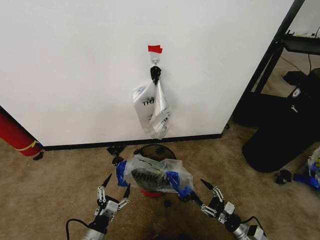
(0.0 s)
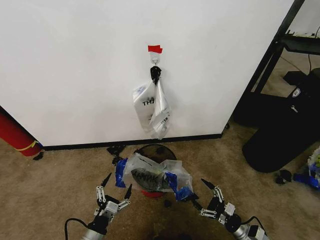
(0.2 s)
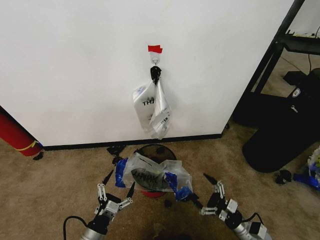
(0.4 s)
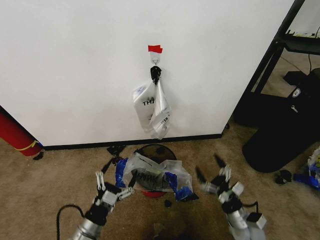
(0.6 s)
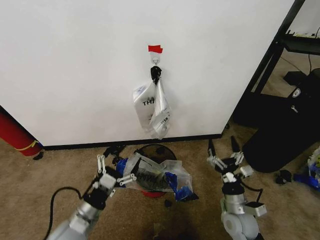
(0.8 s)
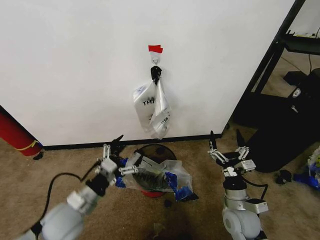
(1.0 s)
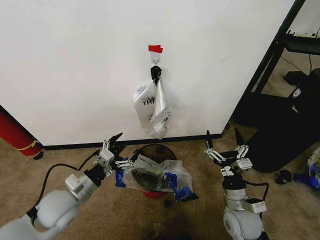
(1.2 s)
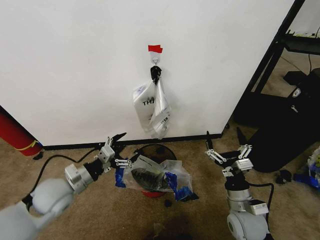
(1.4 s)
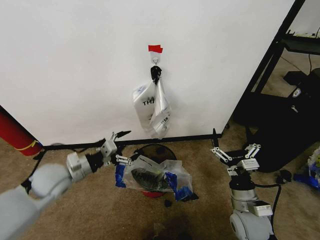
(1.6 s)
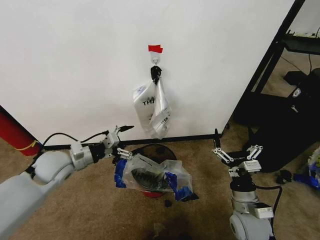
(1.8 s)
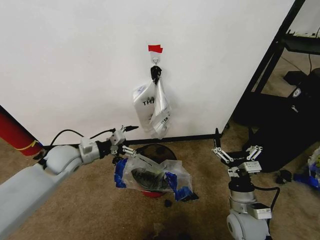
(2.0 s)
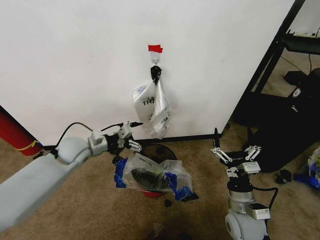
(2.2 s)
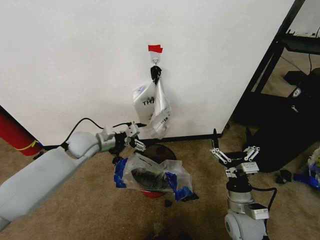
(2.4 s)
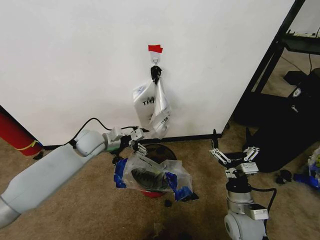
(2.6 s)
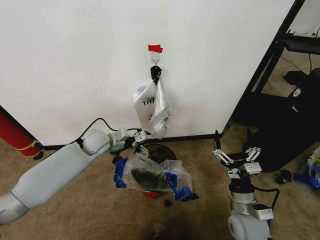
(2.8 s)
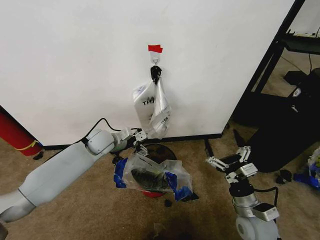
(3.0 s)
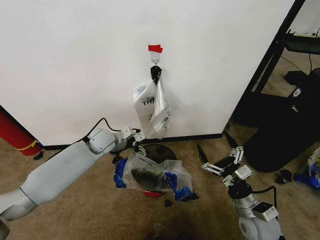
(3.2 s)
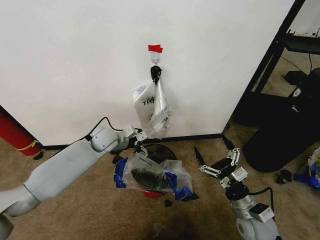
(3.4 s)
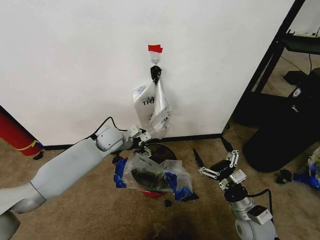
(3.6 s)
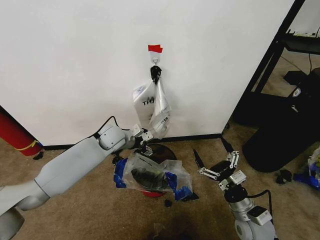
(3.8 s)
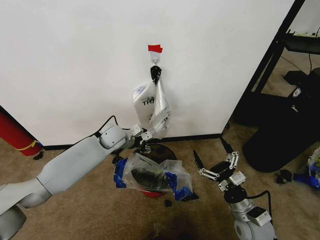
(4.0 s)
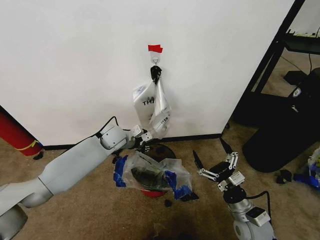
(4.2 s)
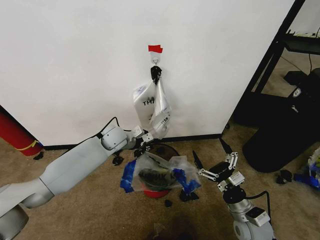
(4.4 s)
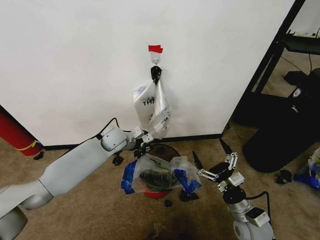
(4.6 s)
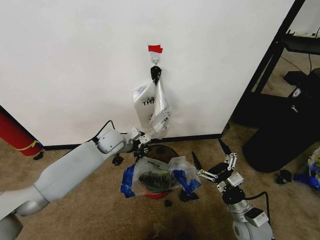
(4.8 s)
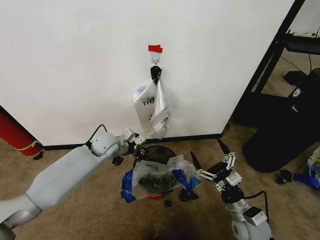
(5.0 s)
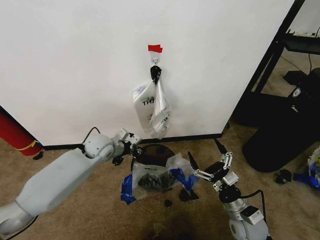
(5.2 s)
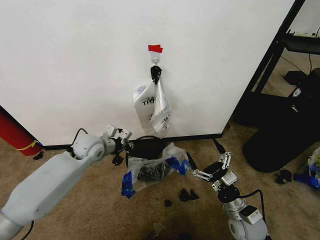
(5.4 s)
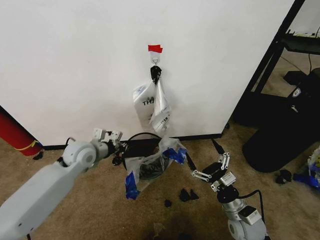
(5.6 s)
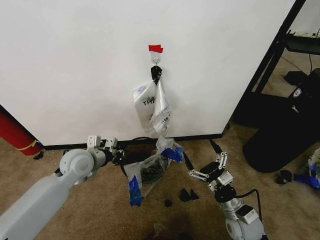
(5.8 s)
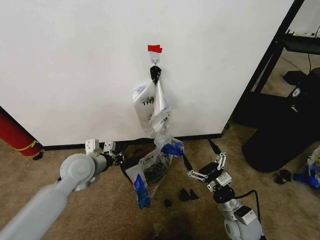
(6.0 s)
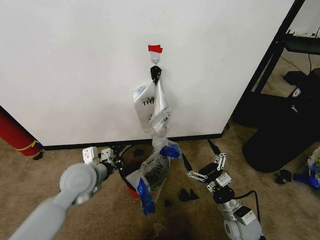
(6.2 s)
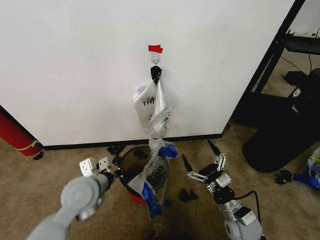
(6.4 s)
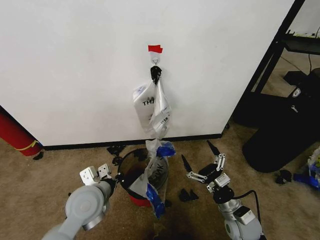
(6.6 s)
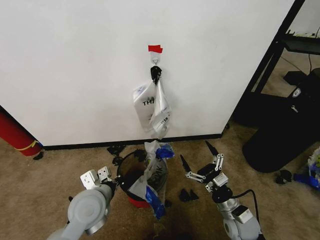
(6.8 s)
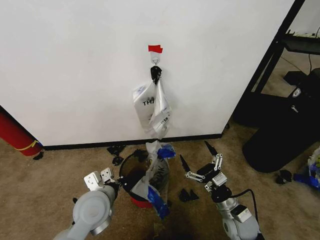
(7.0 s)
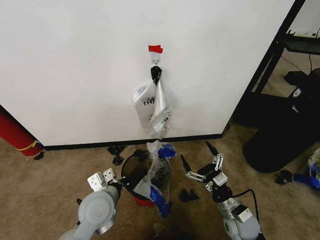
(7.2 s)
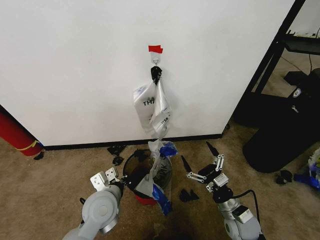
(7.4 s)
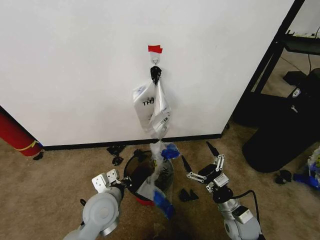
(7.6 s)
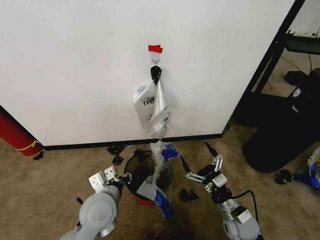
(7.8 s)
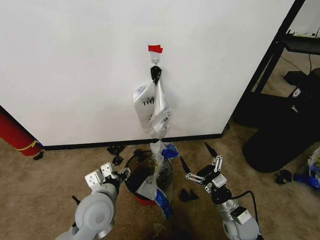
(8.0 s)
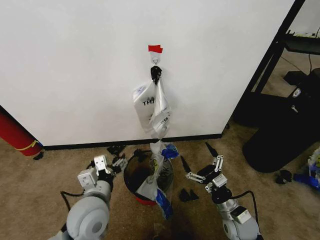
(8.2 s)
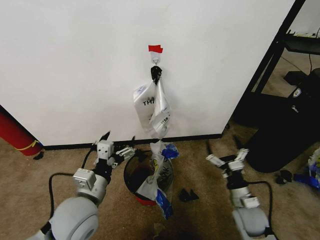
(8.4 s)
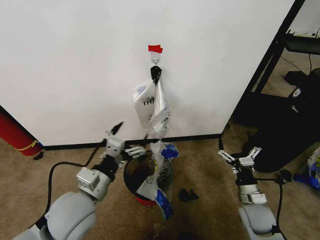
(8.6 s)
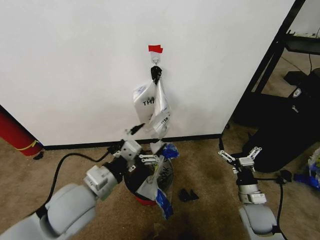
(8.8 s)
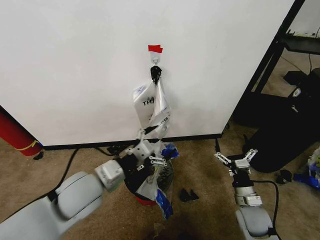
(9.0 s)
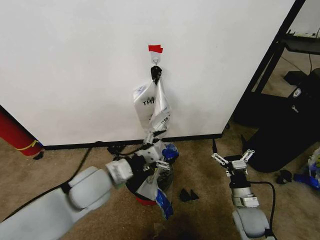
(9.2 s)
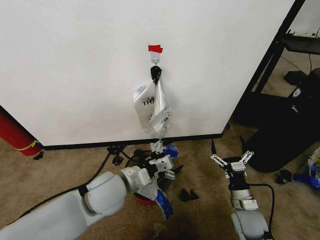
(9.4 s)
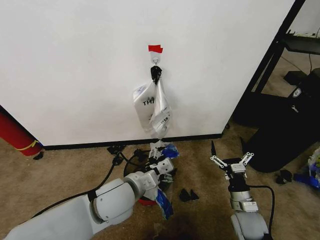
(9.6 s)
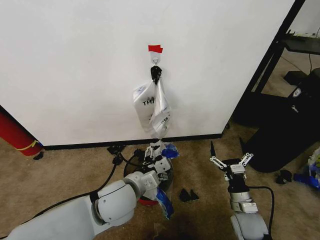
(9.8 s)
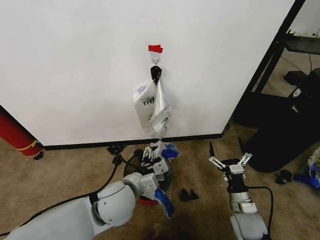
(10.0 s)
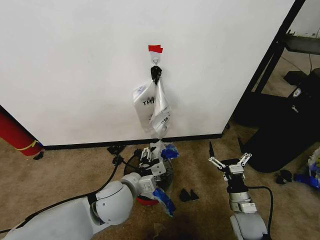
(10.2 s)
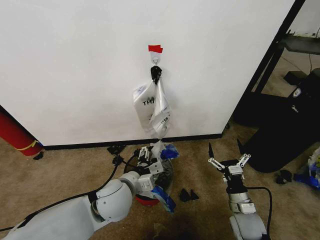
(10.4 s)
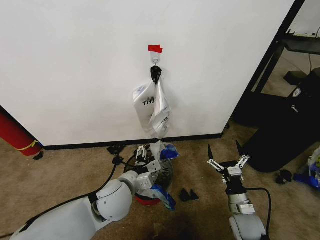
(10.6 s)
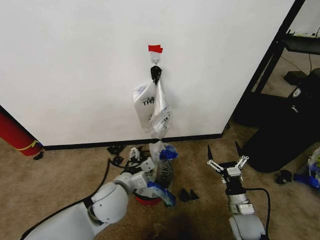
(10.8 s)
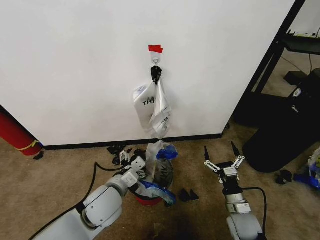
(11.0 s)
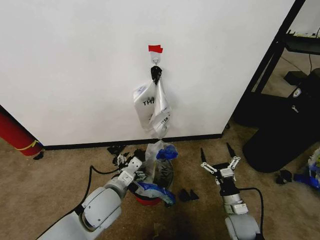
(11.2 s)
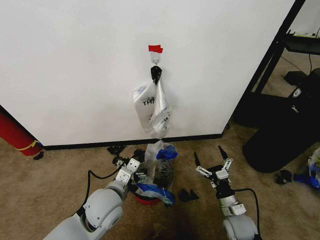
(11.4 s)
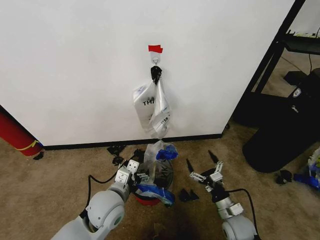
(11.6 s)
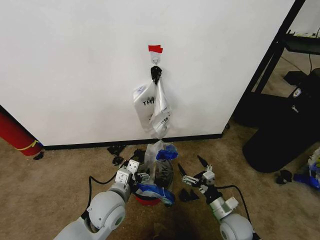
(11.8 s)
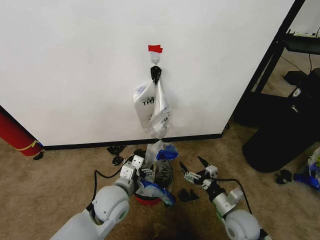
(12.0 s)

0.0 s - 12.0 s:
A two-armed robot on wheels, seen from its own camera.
Task of the whole recording: Pick up the garbage bag from the wall and place it over the trash bin.
0.0 s - 1.6 s: The left gripper goes approximately 30 cm upward and forward. The right gripper shifts approximately 20 cm upward and to the left.
1.6 s - 3.0 s: The left gripper goes roughly 20 cm forward and to the right.
3.0 s - 4.4 s: The left gripper ends up roughly 5 cm from where it was, and closes up.
4.4 s - 6.0 s: The left gripper travels backward and to the left by roughly 15 cm.
6.0 s - 7.6 s: The left gripper moves backward, to the right and downward, roughly 15 cm.
7.6 s - 9.0 s: The left gripper shifts some 10 cm upward, and opens up.
9.0 s - 10.4 s: The left gripper is displaced downward and to the right by some 10 cm.

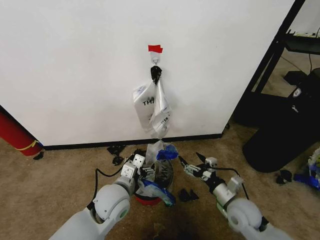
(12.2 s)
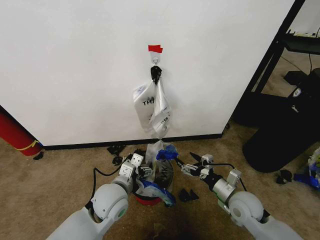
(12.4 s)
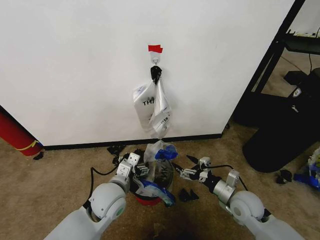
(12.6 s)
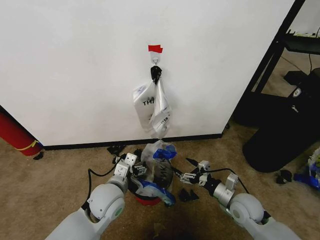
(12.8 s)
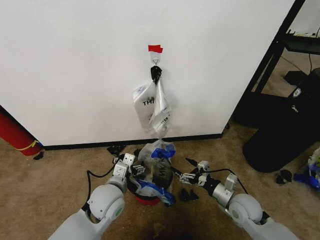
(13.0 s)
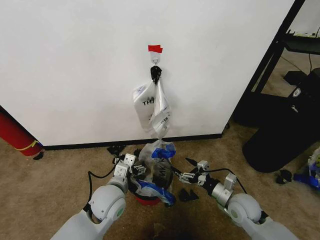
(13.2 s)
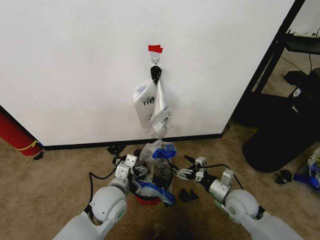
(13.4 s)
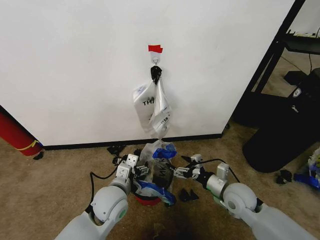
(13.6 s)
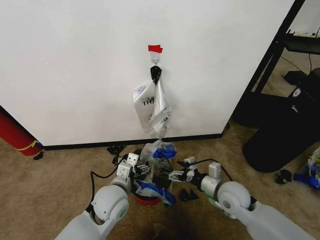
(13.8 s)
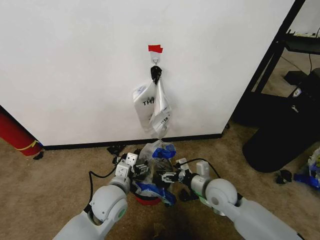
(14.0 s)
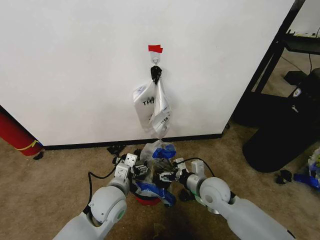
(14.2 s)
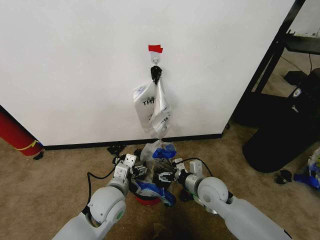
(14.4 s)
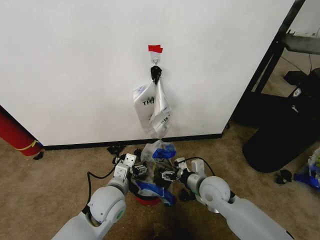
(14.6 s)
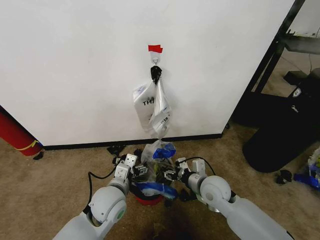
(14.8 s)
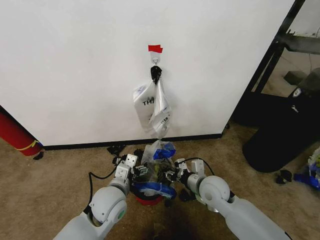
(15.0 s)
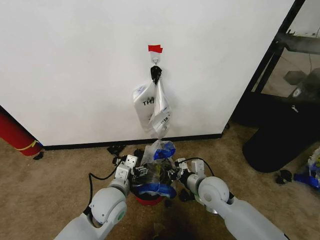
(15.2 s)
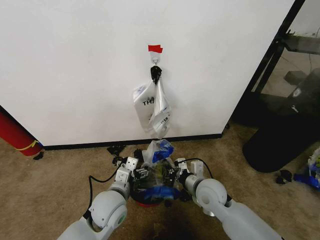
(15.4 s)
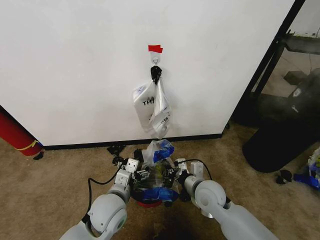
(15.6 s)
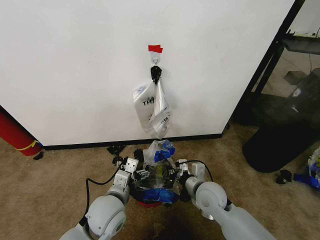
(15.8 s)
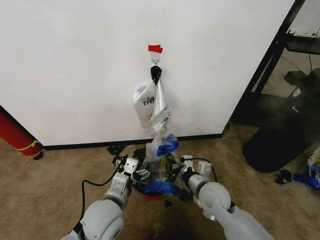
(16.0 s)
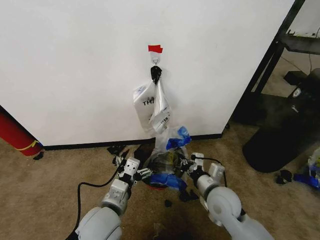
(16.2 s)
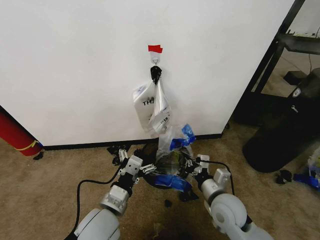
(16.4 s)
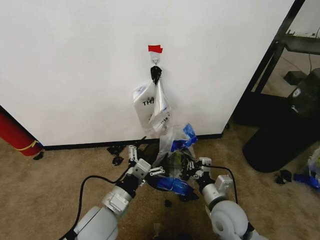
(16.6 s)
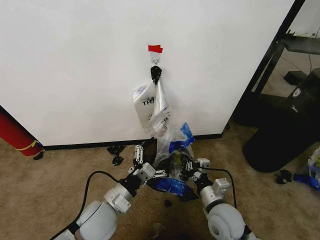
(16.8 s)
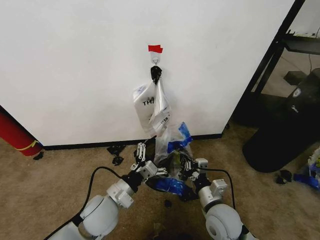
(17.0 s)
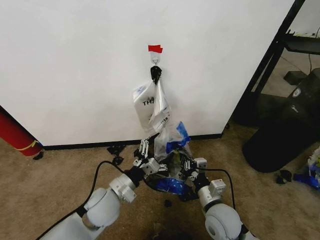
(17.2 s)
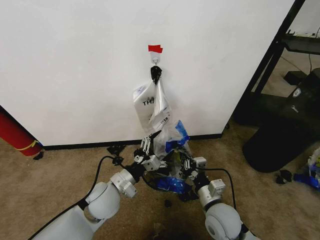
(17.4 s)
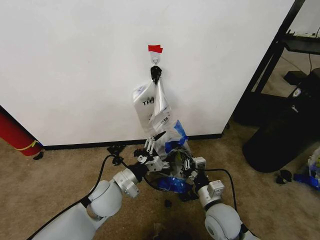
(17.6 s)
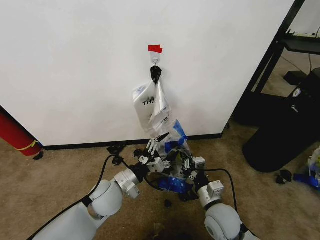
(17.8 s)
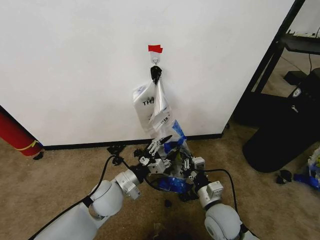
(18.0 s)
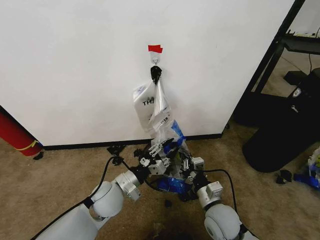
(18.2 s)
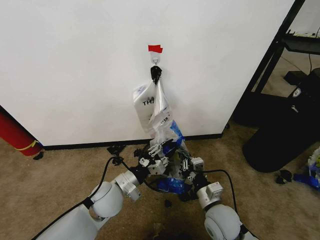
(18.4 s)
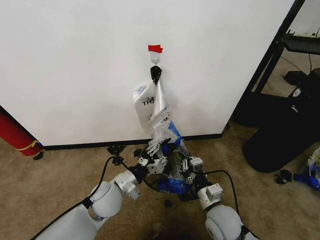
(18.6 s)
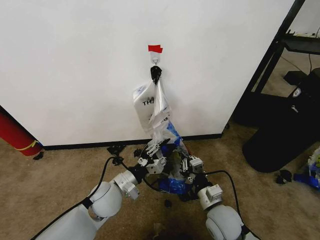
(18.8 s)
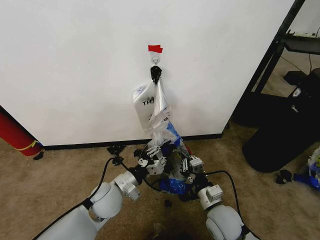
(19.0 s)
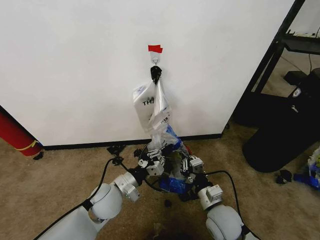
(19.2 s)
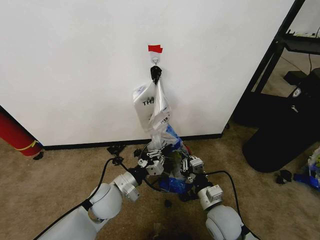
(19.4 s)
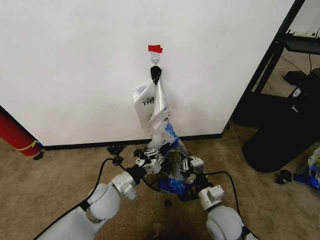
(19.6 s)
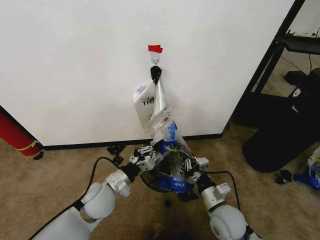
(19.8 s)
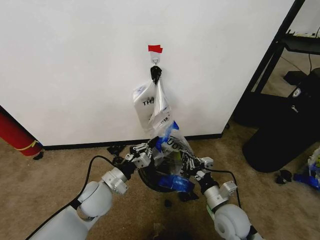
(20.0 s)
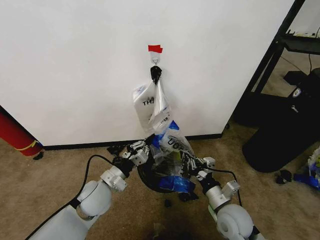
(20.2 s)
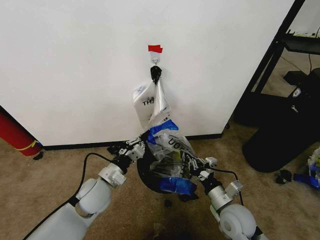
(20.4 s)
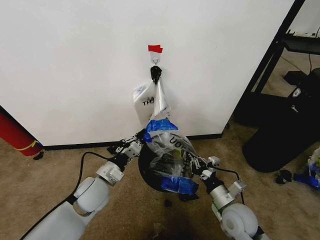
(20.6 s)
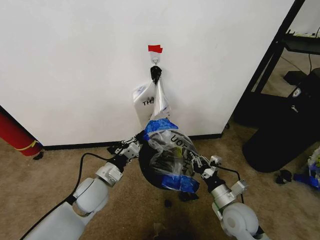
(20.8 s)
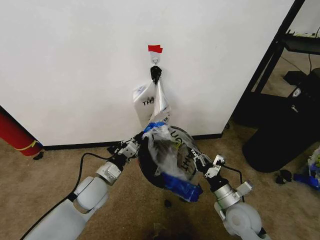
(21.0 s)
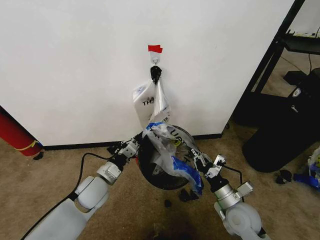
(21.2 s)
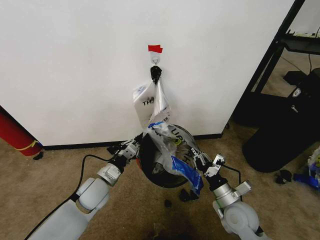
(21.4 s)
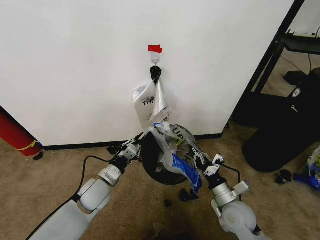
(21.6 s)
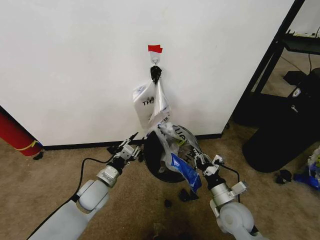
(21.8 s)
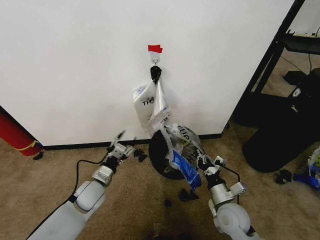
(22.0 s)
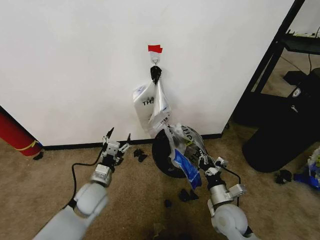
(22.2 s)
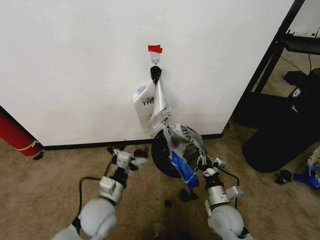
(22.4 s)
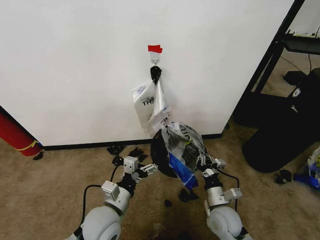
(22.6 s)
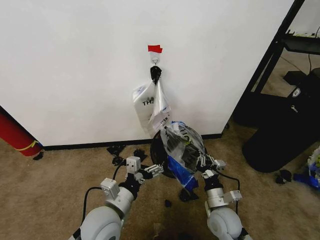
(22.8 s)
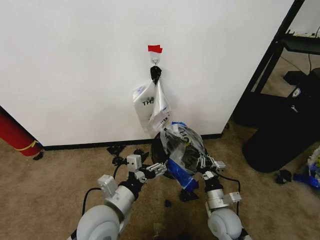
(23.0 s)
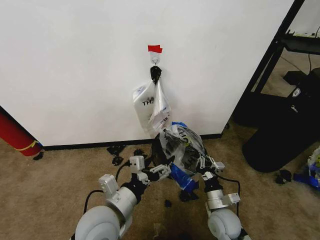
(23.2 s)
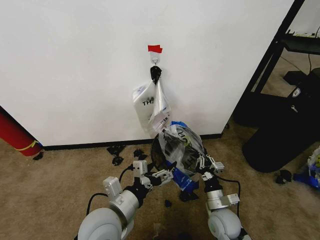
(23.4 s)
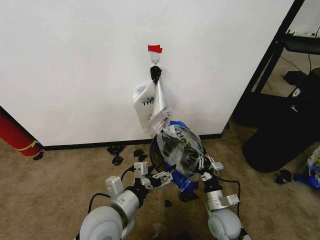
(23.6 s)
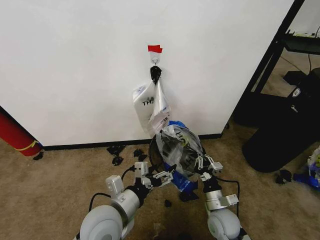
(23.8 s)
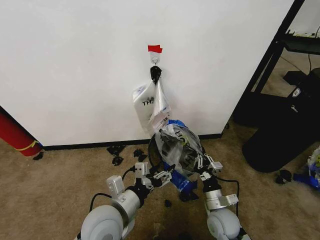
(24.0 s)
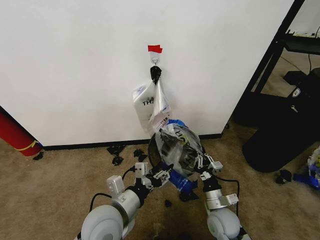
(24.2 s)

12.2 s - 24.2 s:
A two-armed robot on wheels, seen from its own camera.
Task of the whole recording: Pick up the garbage bag from the wall and place it over the trash bin.
12.2 s - 13.8 s: The right gripper changes place by roughly 5 cm.
13.8 s - 15.2 s: The right gripper is displaced to the left by some 5 cm, and closes up.
15.2 s - 16.6 s: The grippers both shift backward by approximately 5 cm.
16.6 s - 18.2 s: The left gripper goes approximately 10 cm forward, and closes its fingers.
18.2 s - 19.8 s: The left gripper closes its fingers.
19.8 s - 21.2 s: The right gripper travels to the right by roughly 5 cm.
21.2 s - 22.6 s: The right gripper shifts by about 5 cm, while the left gripper goes roughly 10 cm backward and to the right, and opens.
22.6 s - 24.2 s: The left gripper goes roughly 5 cm upward, and closes up.
